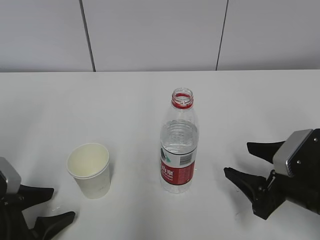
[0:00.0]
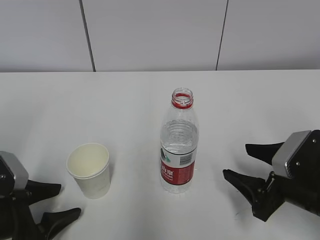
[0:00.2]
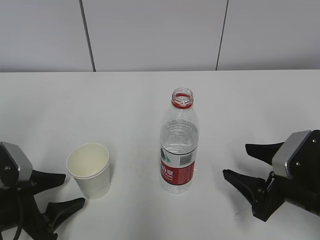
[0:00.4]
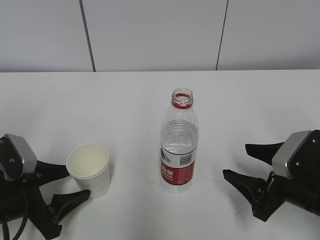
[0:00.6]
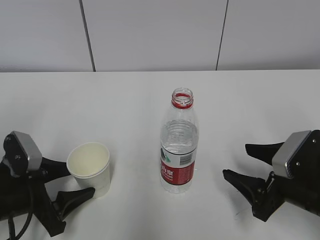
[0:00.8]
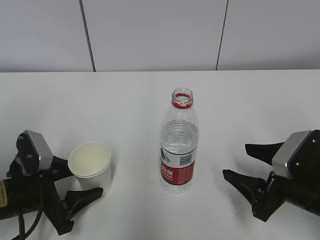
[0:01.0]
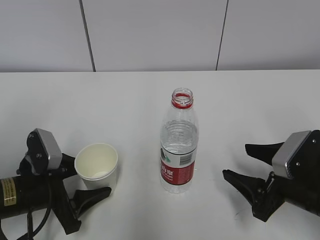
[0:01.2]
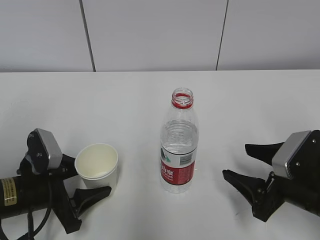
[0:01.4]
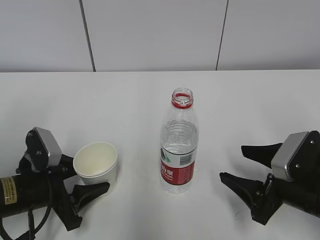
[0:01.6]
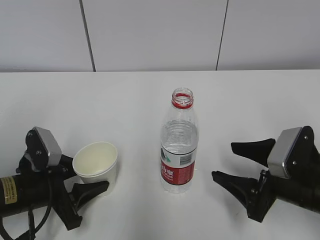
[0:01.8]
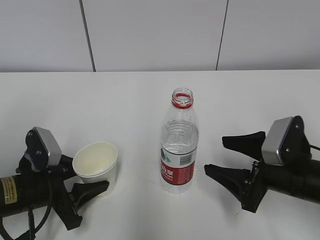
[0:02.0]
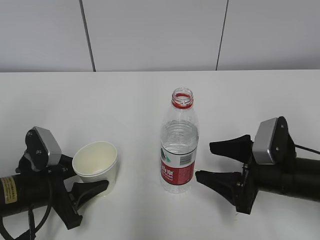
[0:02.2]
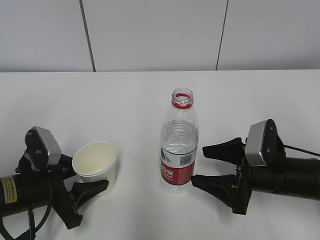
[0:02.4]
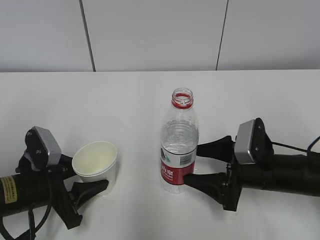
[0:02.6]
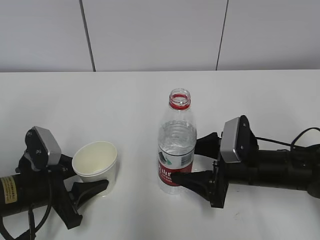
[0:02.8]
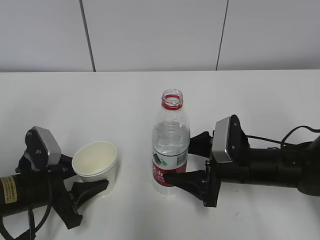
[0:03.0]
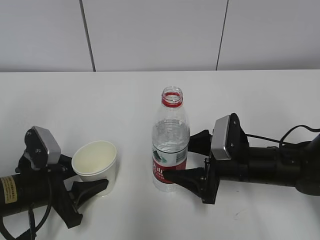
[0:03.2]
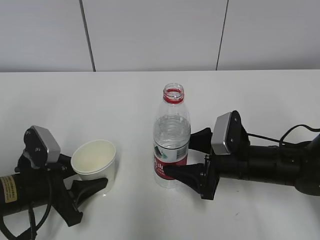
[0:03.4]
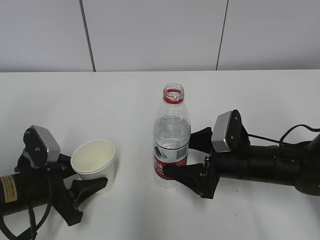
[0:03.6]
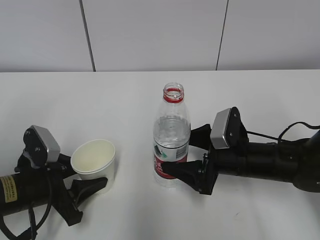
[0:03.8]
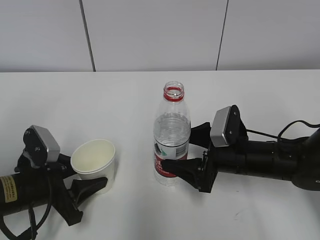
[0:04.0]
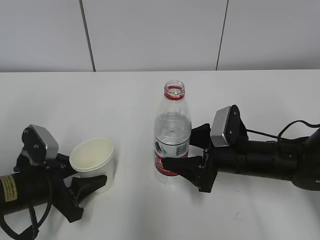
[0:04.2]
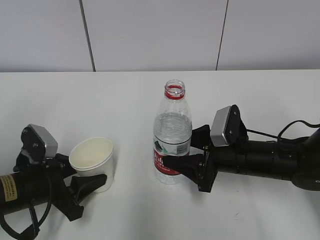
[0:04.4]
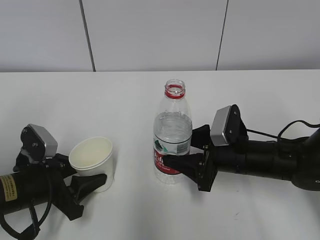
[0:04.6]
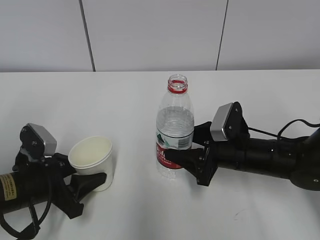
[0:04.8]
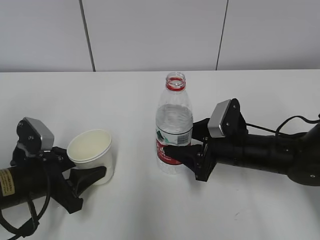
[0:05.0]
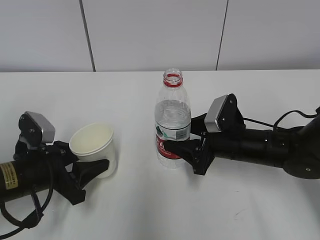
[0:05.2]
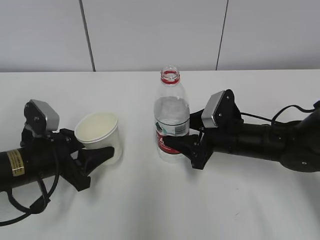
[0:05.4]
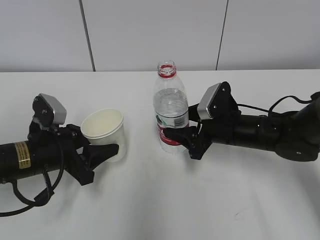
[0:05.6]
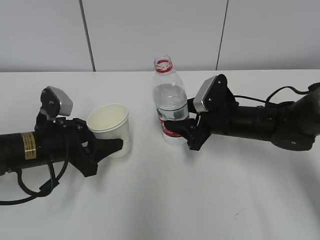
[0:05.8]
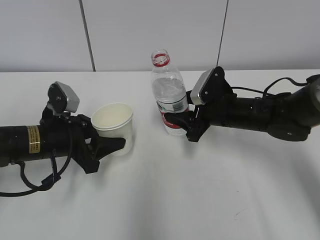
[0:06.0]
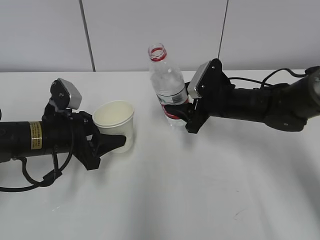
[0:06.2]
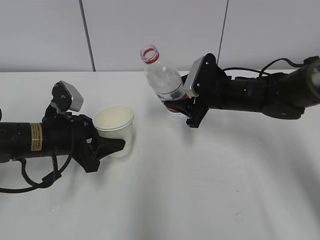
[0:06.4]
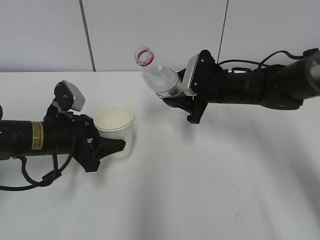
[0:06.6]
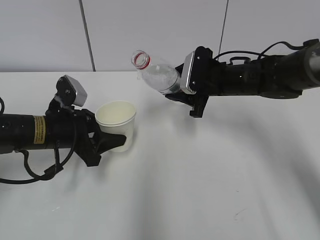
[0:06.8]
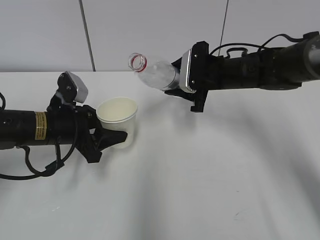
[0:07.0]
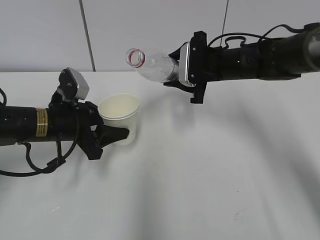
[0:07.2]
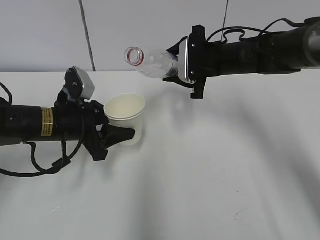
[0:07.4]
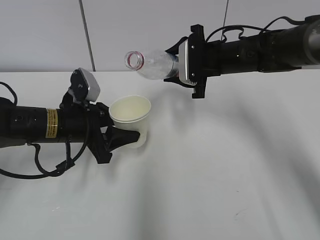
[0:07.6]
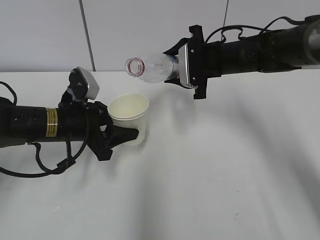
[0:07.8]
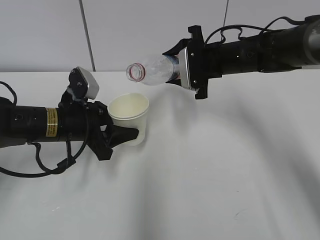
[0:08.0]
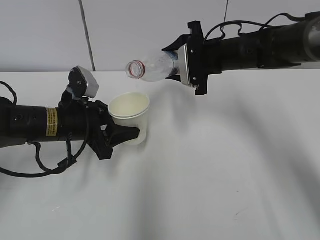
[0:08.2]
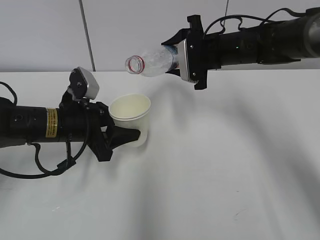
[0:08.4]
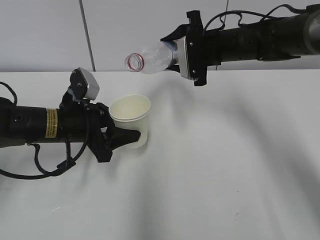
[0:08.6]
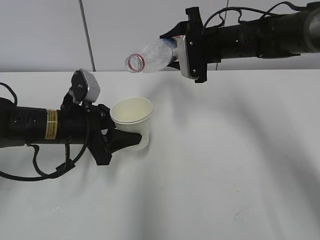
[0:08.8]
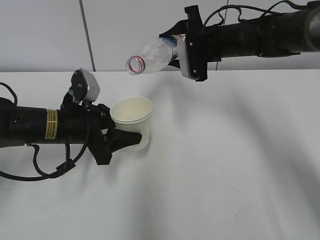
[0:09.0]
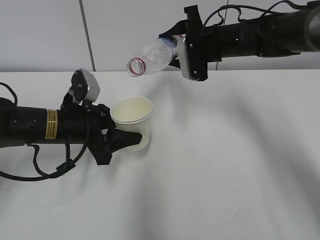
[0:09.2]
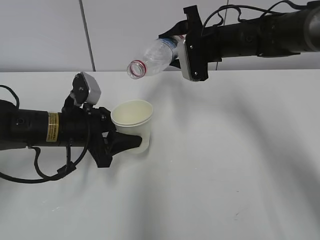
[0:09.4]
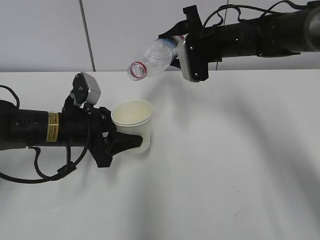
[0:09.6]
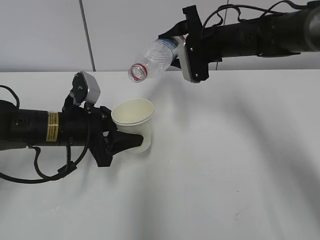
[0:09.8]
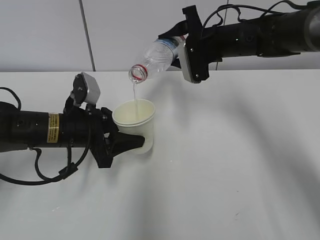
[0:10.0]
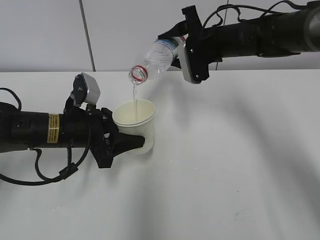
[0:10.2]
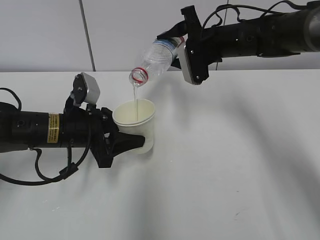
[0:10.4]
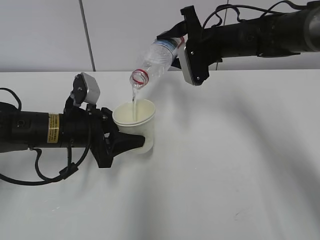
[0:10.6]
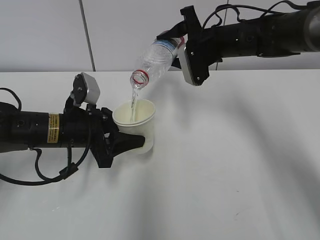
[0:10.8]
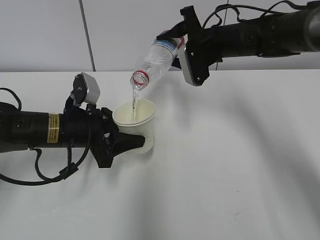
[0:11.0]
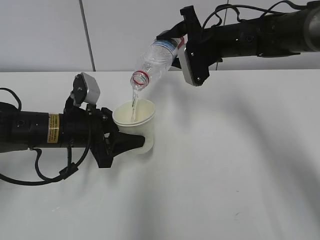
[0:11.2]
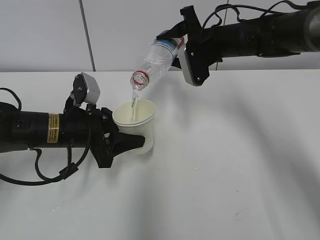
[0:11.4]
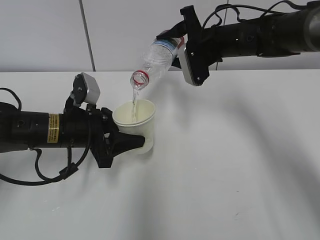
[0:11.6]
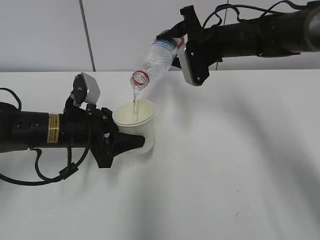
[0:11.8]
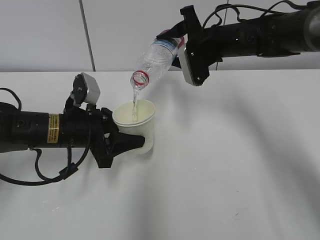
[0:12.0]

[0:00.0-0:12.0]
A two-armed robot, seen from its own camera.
Step, 0:00.0 to 0:02.4: Grab the paper cup with the left hand.
Step, 0:02.6 to 0:02.8: Grab the water bottle with the right hand.
Step, 0:03.0 to 0:06.4: Lift the paper cup with the left hand.
Step, 0:06.6 to 0:10.2: Fill water with the left hand.
Step, 0:06.6 to 0:10.2: Pour water with the right hand.
0:00.0 to 0:01.6: The left gripper travels forward by roughly 5 cm.
0:01.6 to 0:03.0: The right gripper is displaced forward and to the left by about 10 cm.
0:03.0 to 0:04.4: The right gripper closes its fingers.
0:04.4 to 0:06.0: The grippers both shift forward by approximately 10 cm.
0:06.0 to 0:07.6: The right gripper travels upward and forward by roughly 10 cm.
0:07.6 to 0:09.0: The grippers make only small movements.
0:09.0 to 0:10.4: The grippers make only small movements.
0:10.4 to 0:12.0: Both grippers stay put.

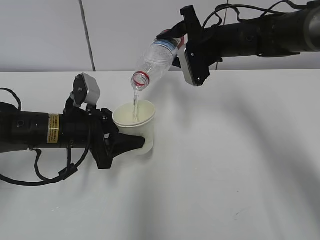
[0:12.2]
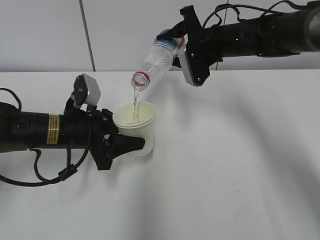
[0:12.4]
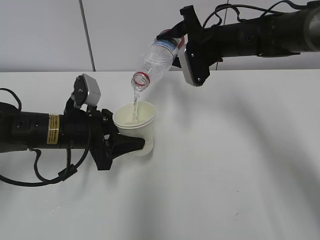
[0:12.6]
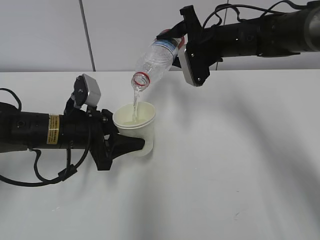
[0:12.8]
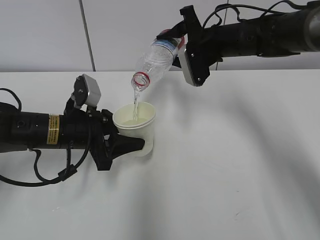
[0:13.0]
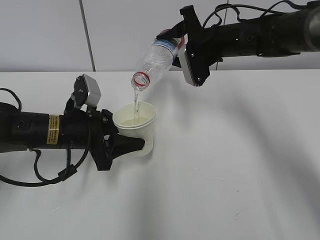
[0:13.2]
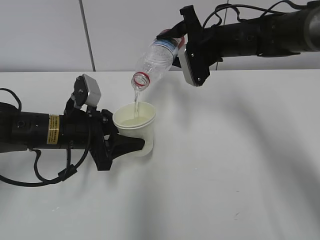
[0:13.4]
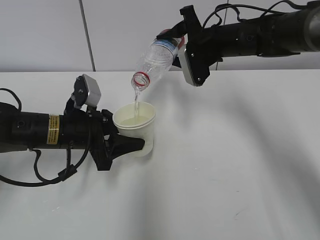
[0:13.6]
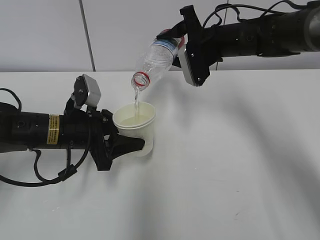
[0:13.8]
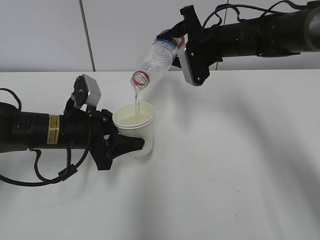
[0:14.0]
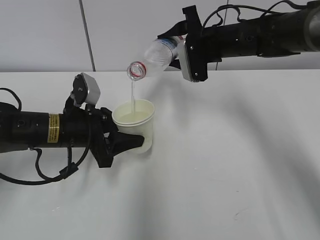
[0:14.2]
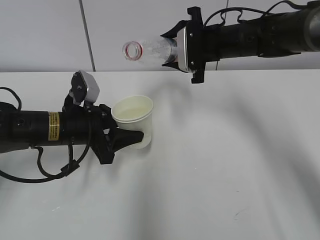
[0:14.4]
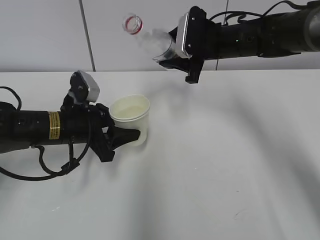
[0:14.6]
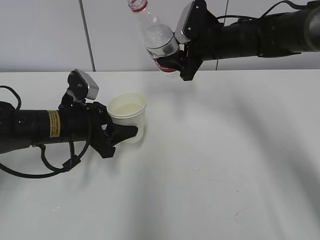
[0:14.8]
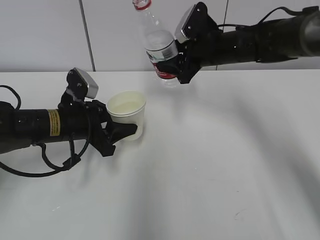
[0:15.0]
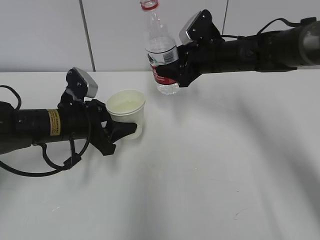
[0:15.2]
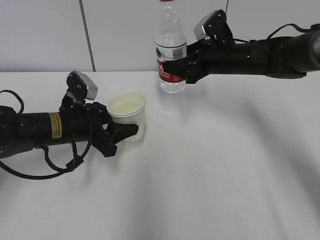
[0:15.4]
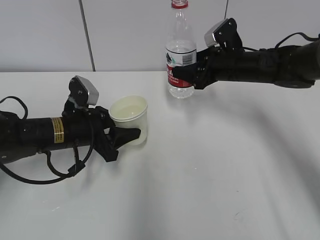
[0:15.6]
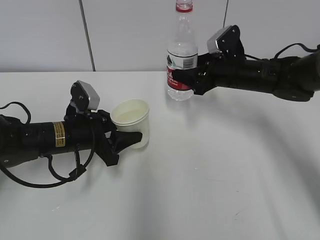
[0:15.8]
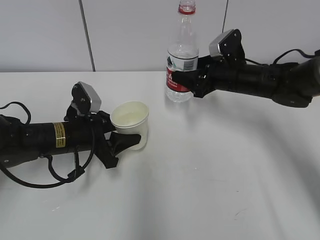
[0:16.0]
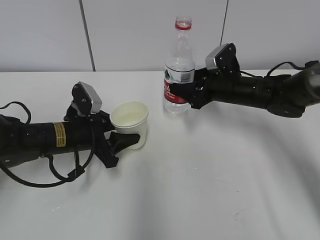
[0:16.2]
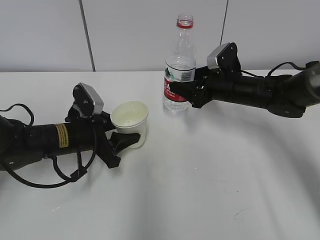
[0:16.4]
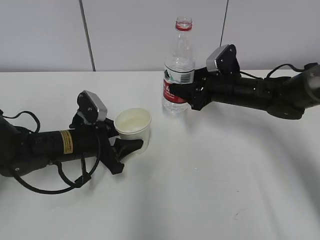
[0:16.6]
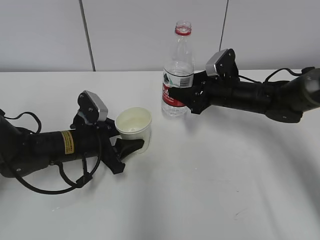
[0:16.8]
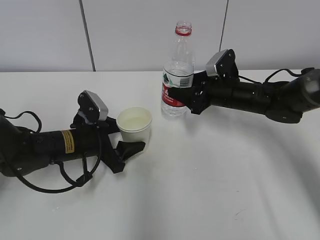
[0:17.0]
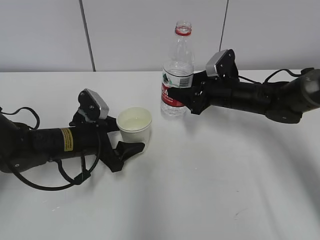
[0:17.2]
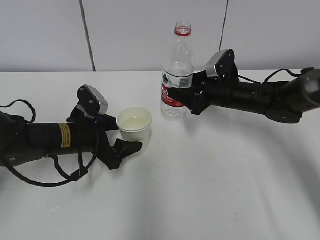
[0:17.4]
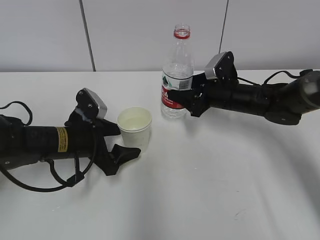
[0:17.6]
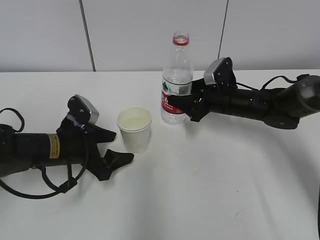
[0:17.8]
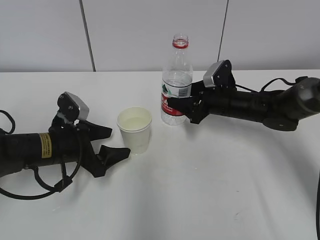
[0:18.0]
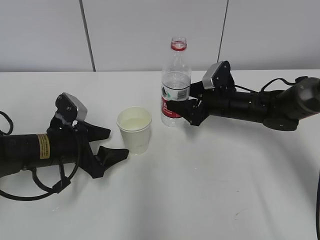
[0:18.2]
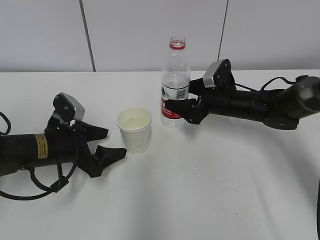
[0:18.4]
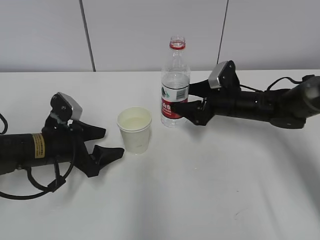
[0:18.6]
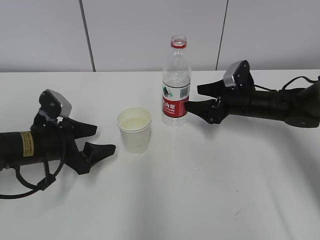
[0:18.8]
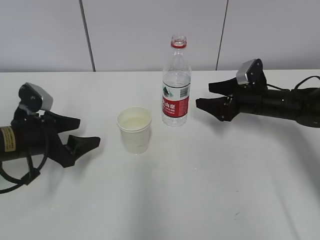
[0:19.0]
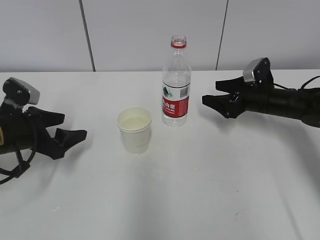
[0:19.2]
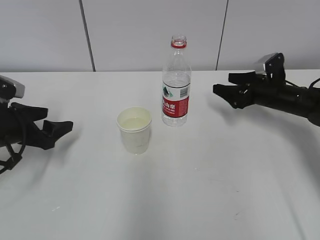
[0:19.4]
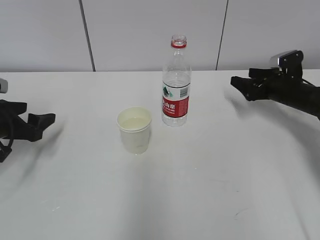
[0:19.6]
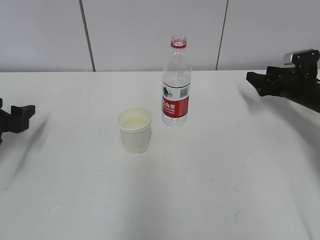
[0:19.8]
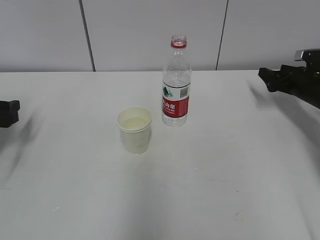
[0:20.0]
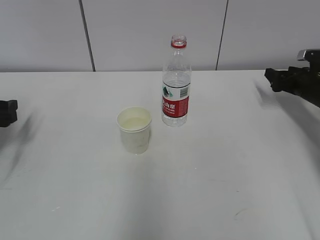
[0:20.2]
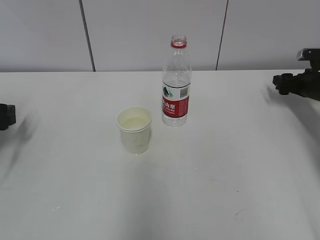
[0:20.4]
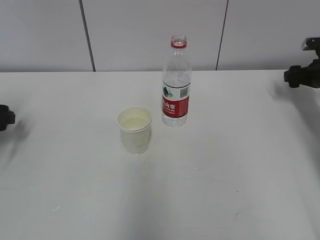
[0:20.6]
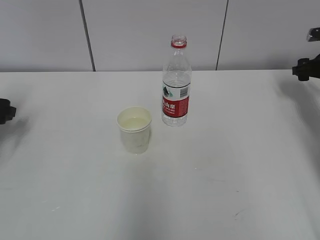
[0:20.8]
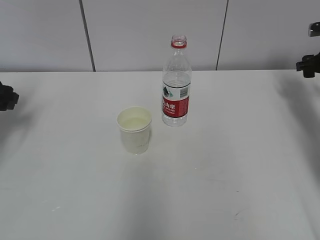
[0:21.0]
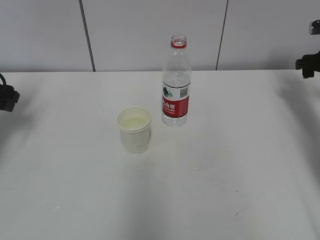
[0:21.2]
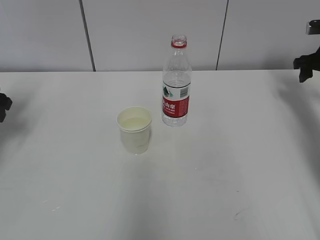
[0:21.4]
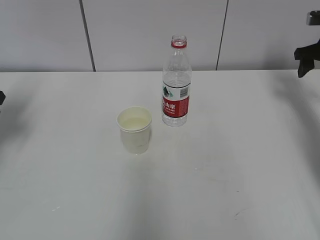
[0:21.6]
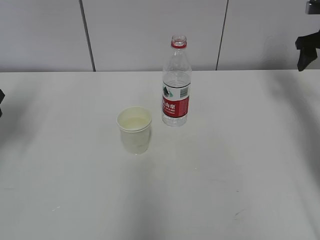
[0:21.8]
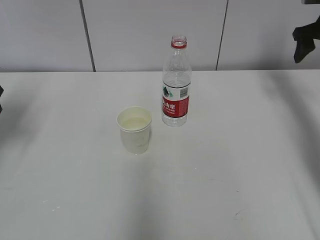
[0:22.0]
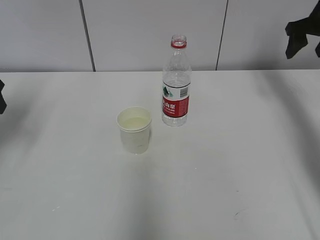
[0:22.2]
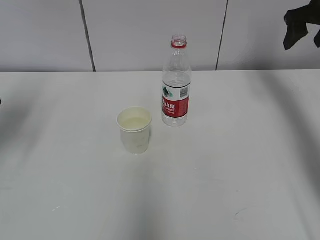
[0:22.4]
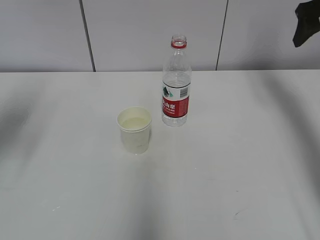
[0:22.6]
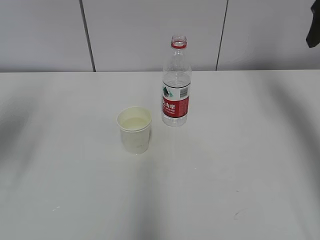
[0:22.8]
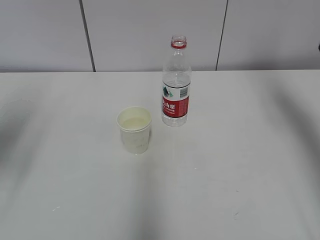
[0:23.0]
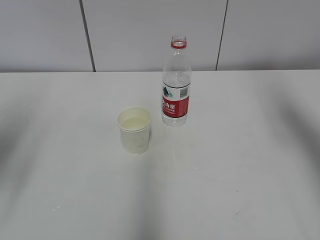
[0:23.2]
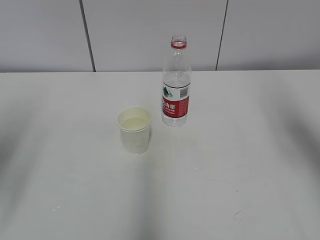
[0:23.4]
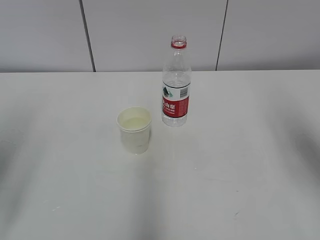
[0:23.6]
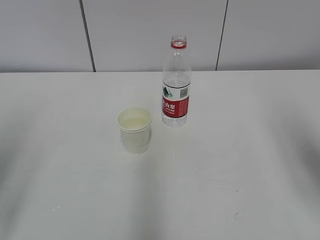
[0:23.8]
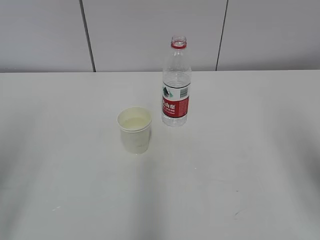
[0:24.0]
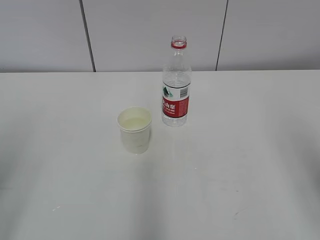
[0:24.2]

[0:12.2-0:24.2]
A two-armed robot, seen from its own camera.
0:12.2 to 0:13.8: Both grippers stay about where they are.
0:15.2 to 0:16.6: The right gripper shifts approximately 5 cm downward.
0:16.6 to 0:18.2: The left gripper opens up.
0:18.2 to 0:19.8: The right gripper heads to the right, covering about 20 cm, while the left gripper is displaced to the left by approximately 15 cm.
0:19.8 to 0:21.2: The left gripper shifts about 10 cm upward and forward, while the right gripper travels upward and to the right by some 10 cm.
0:21.2 to 0:22.6: The right gripper heads upward and to the left, covering some 15 cm, while the left gripper travels backward and upward by about 15 cm.
0:22.6 to 0:24.2: The right gripper shifts approximately 30 cm backward. The left gripper moves backward, approximately 20 cm.
